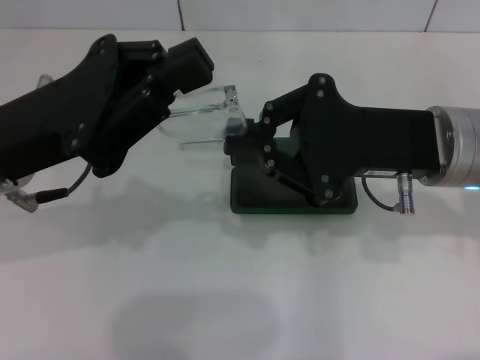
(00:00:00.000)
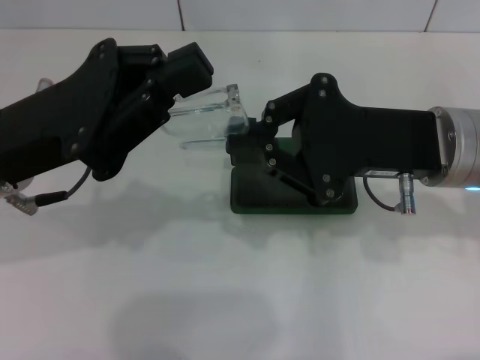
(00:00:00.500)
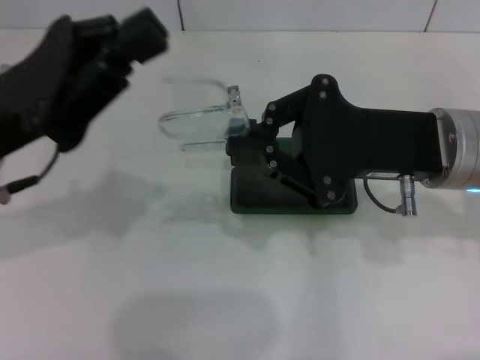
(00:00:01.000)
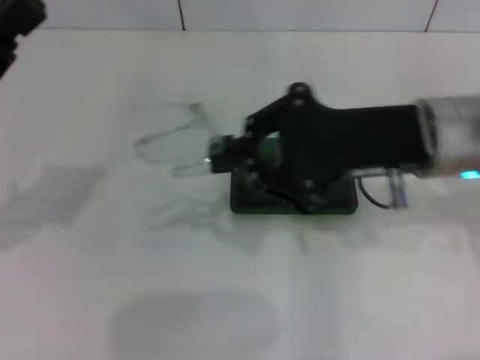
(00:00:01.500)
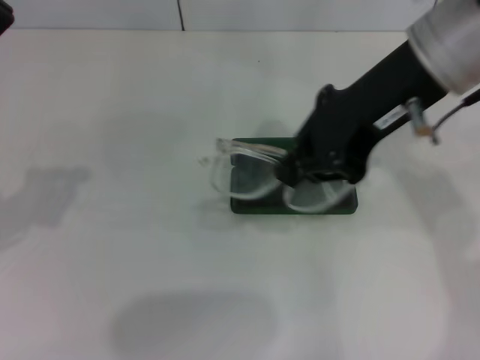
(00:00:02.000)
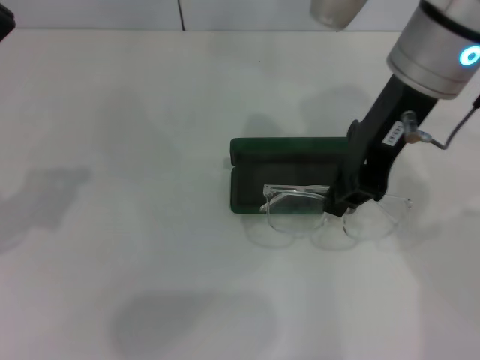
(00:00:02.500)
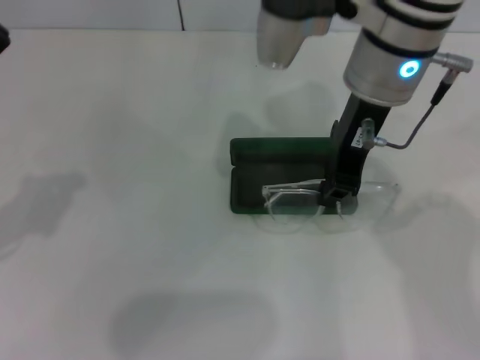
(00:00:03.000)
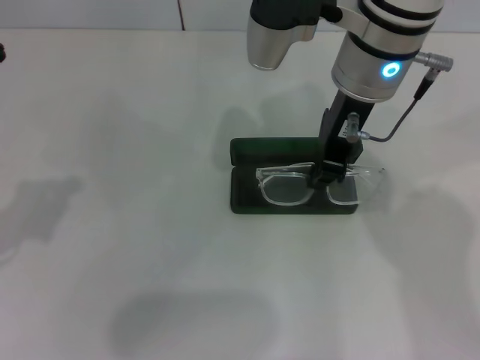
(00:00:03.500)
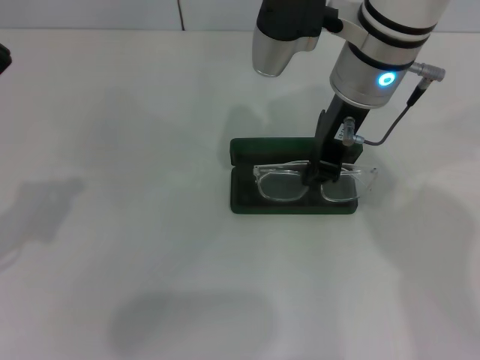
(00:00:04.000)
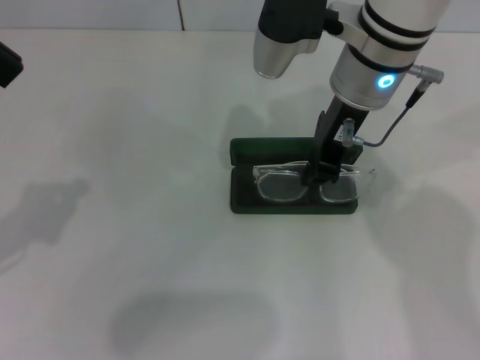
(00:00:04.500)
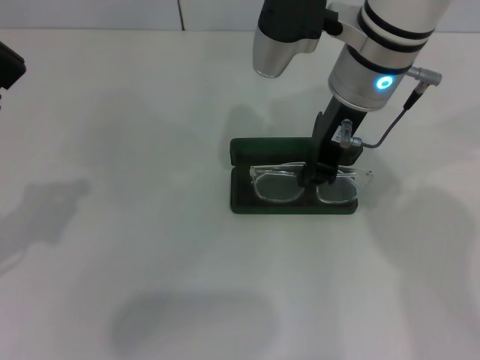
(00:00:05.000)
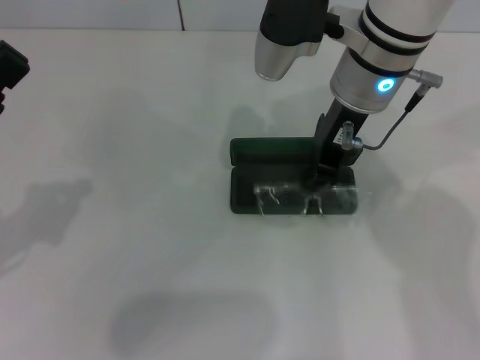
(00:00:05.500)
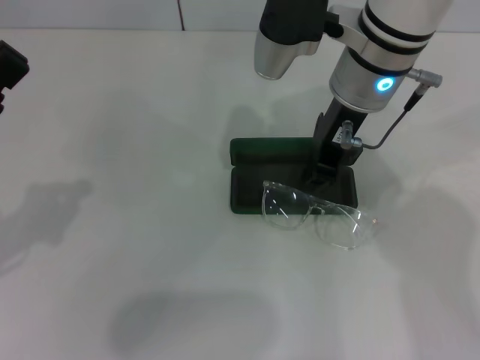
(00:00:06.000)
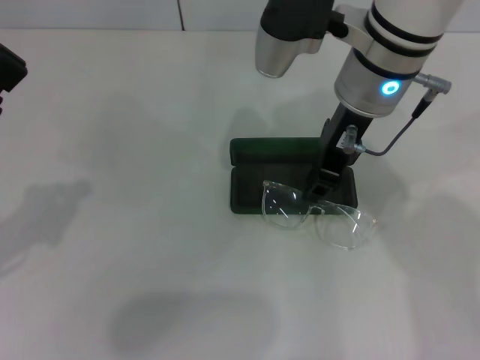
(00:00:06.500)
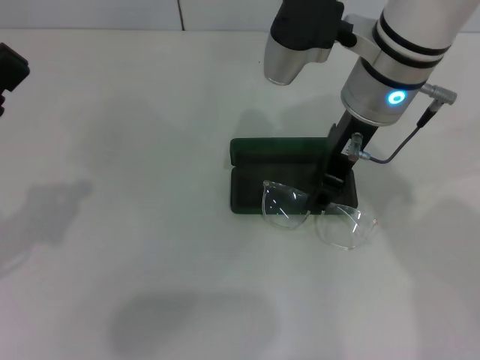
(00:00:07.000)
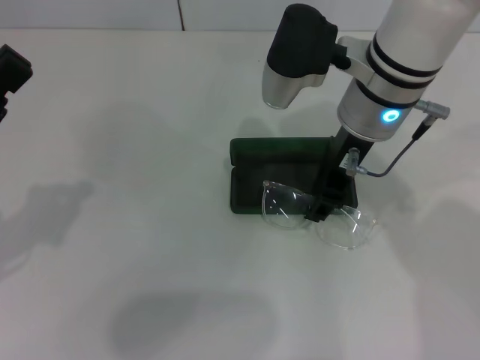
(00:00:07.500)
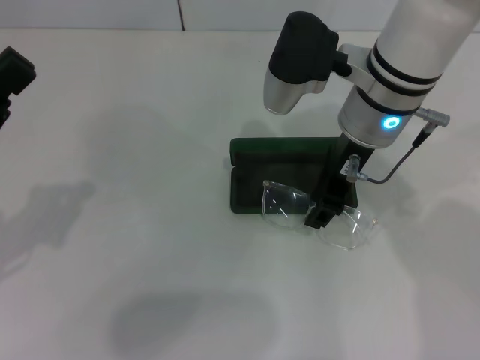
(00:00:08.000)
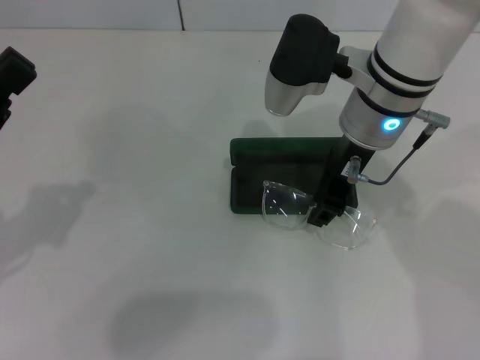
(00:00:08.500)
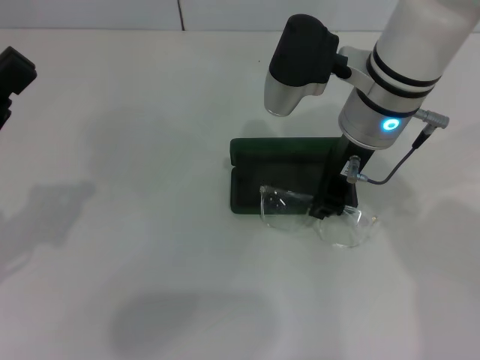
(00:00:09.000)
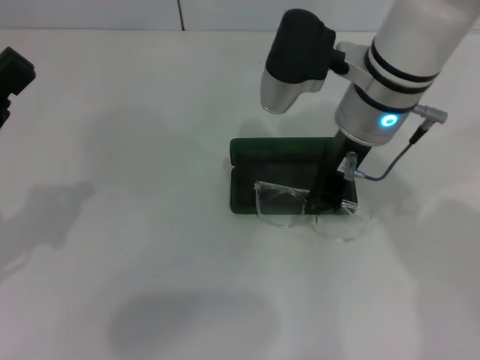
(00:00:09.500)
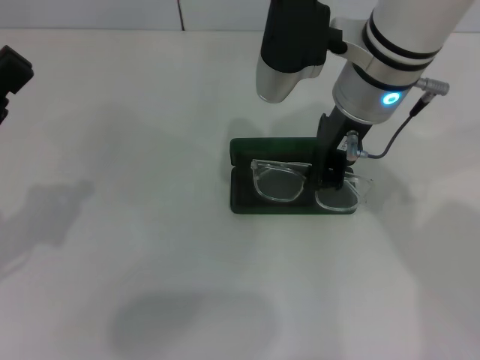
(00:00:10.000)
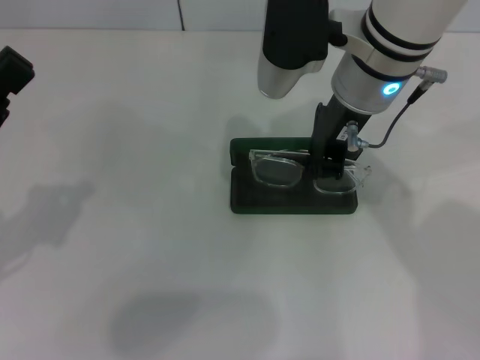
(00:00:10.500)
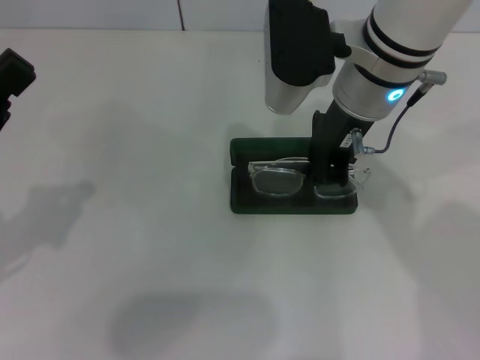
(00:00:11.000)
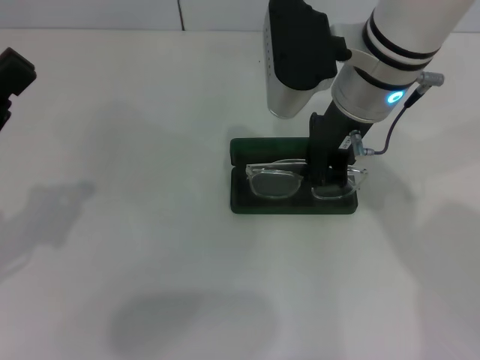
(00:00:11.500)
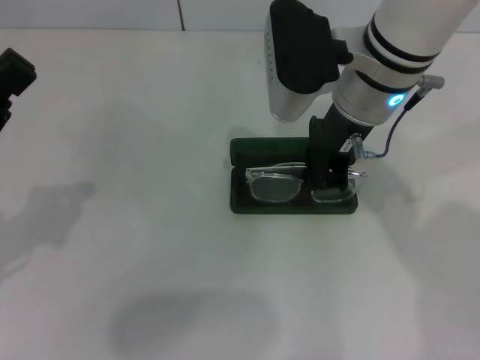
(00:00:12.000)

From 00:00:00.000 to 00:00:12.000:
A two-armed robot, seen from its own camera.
From 00:00:00.000 to 00:00:02.000: The left gripper is displaced to the left by some 10 cm. Meanwhile the right gripper heads upward, covering some 10 cm.
From 00:00:02.000 to 00:00:04.000: The right gripper goes some 10 cm downward, forward and to the left.
From 00:00:04.000 to 00:00:06.000: The two grippers keep their place.
From 00:00:06.000 to 00:00:08.000: The right gripper opens.
From 00:00:08.000 to 00:00:10.000: The right gripper closes up.
From 00:00:10.000 to 00:00:12.000: There are only small adjustments of the grippers.

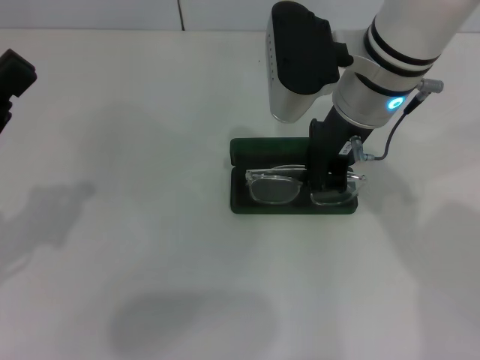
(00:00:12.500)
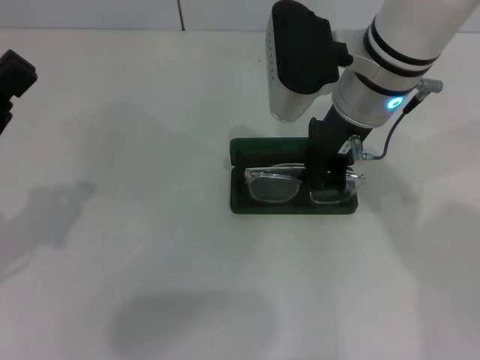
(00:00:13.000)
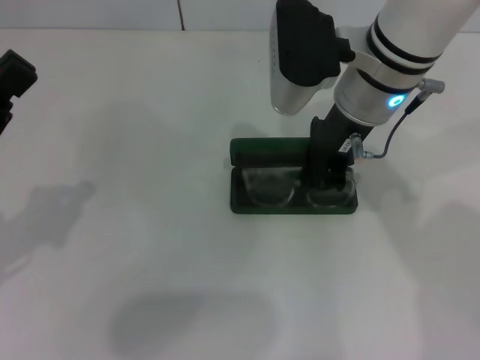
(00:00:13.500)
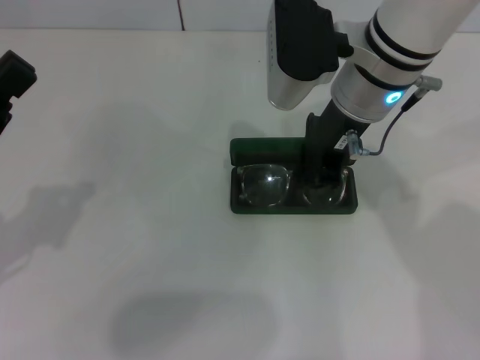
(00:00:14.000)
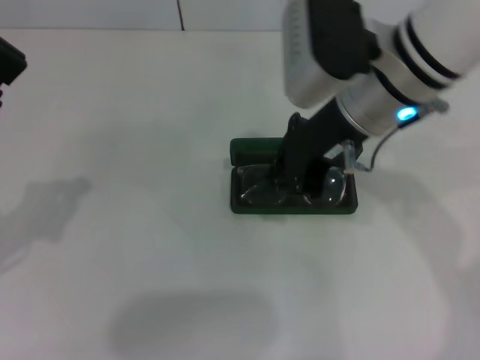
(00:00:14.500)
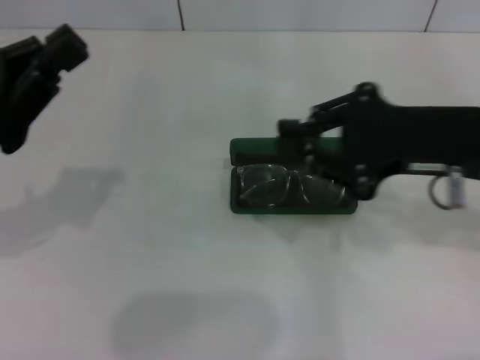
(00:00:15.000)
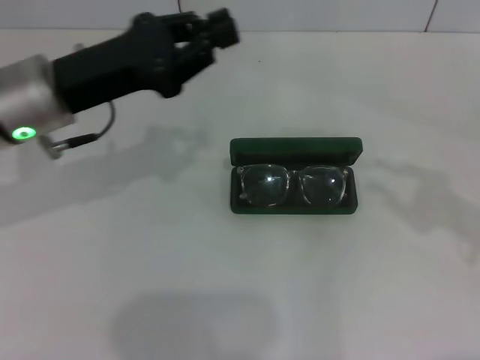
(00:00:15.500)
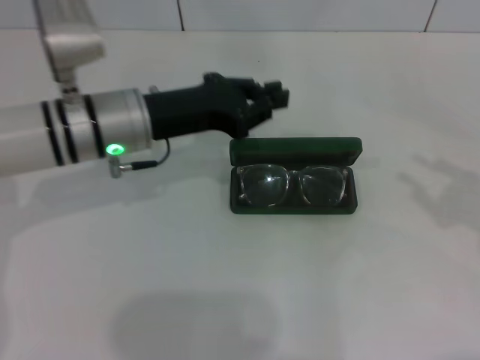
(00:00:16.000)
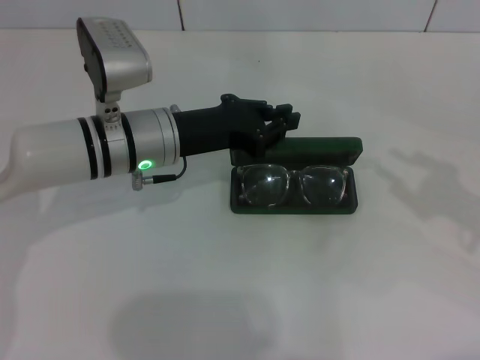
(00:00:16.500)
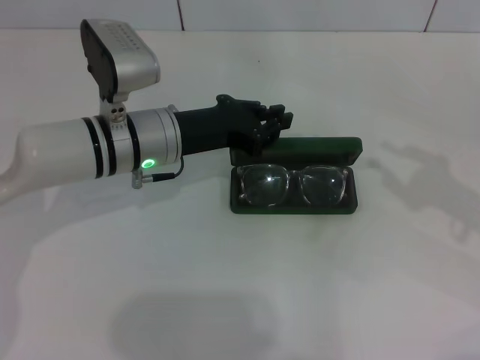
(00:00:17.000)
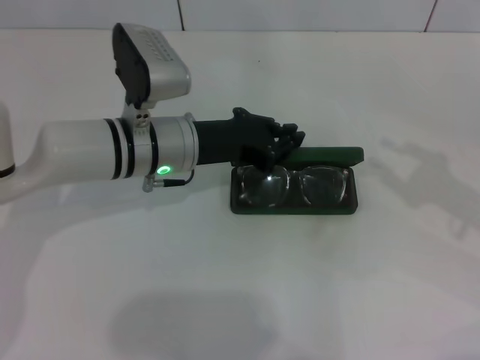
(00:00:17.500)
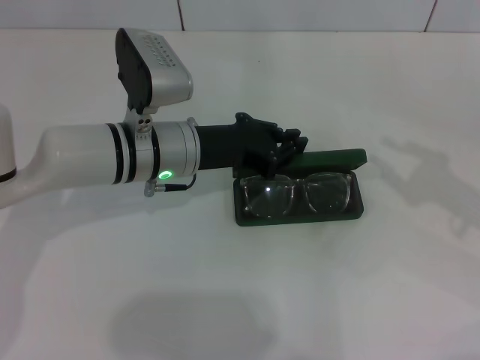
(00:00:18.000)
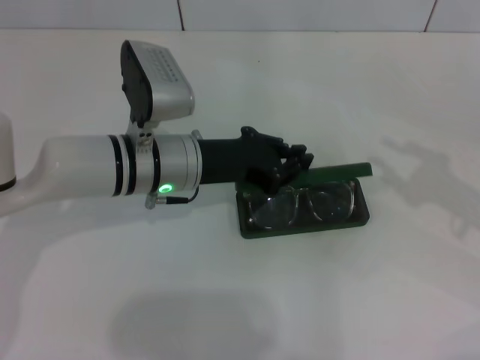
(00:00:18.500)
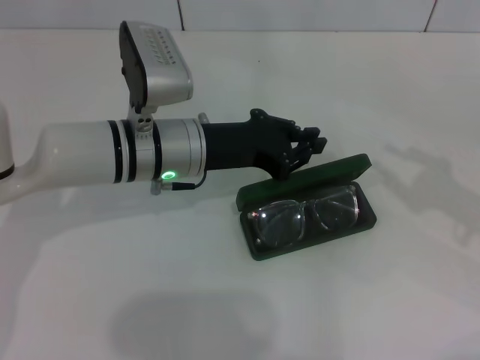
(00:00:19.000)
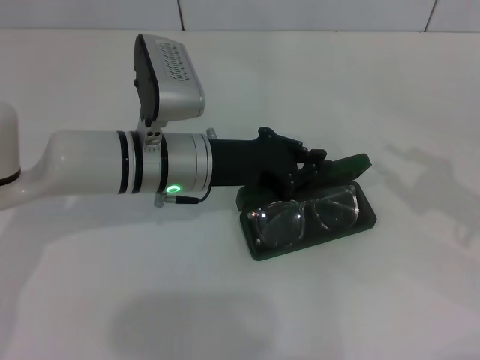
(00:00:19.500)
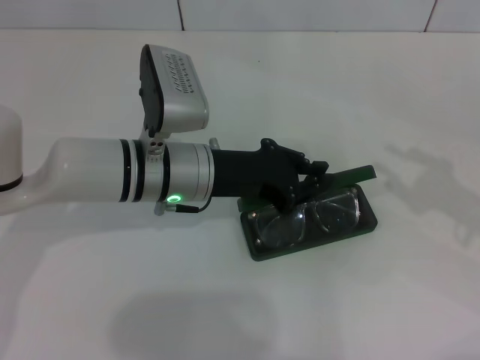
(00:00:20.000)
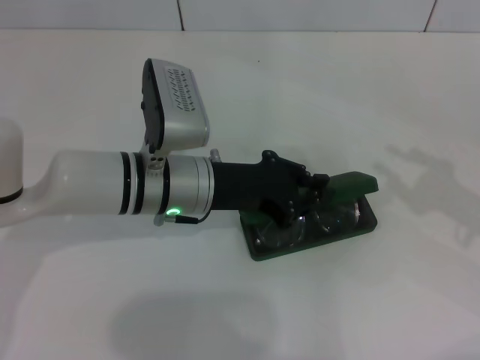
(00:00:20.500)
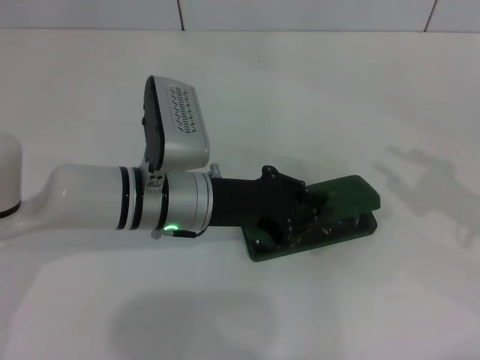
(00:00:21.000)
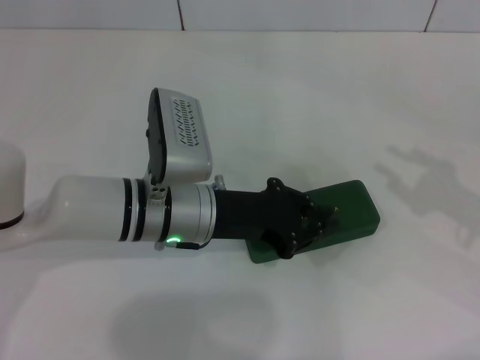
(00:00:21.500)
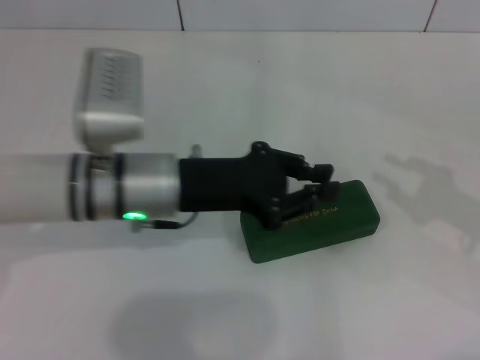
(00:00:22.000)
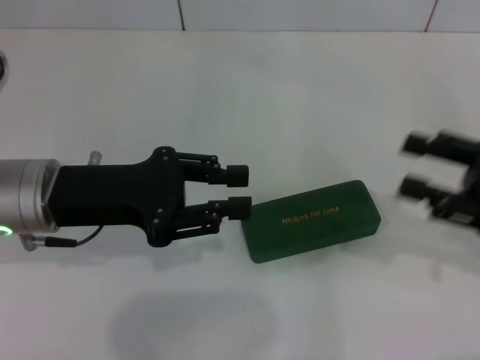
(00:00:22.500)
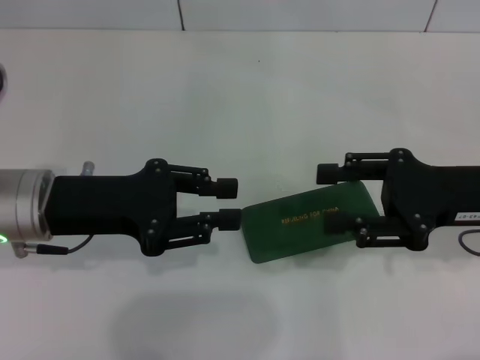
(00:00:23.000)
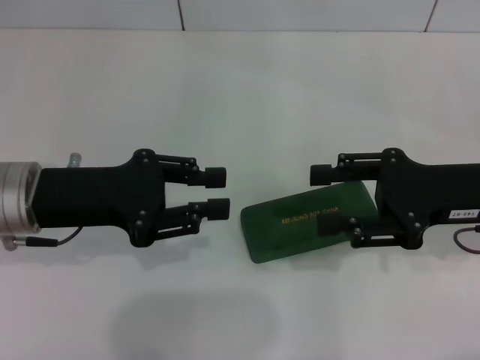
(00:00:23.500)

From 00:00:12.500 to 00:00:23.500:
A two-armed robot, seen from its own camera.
Step, from 00:00:14.000 to 00:00:21.000: Close the glasses case with your left hand.
From 00:00:12.500 to 00:00:14.500: There are only small adjustments of the grippers.
From 00:00:14.500 to 00:00:16.000: The right gripper travels to the right and backward by about 30 cm, while the left gripper moves to the right and forward, some 20 cm.
From 00:00:16.000 to 00:00:18.000: The left gripper moves approximately 5 cm.
From 00:00:18.000 to 00:00:21.500: There are only small adjustments of the grippers.
From 00:00:21.500 to 00:00:23.500: The left gripper travels to the left and upward by roughly 15 cm. Meanwhile the right gripper goes about 10 cm to the left.
